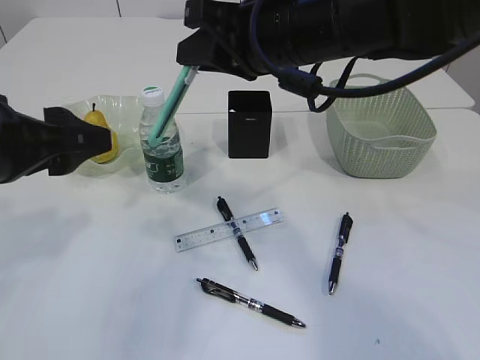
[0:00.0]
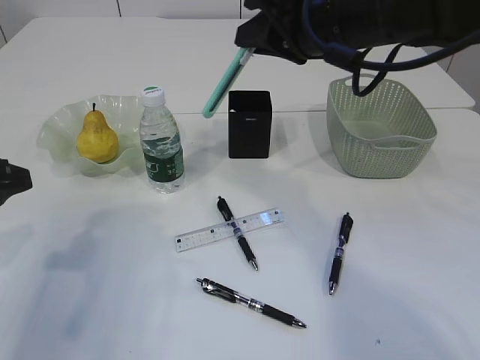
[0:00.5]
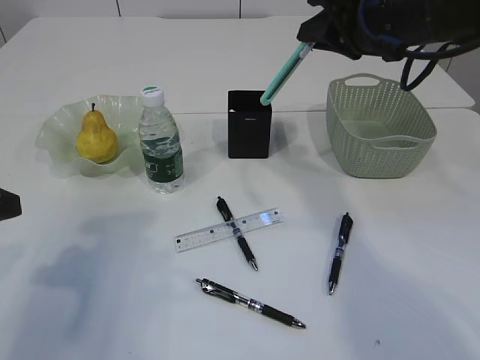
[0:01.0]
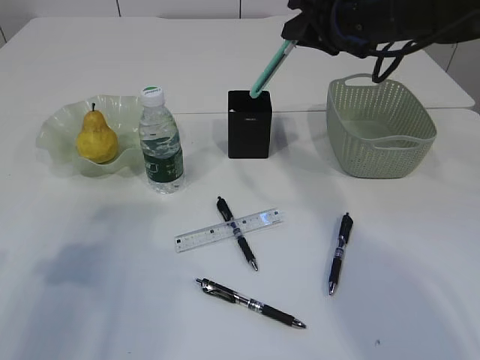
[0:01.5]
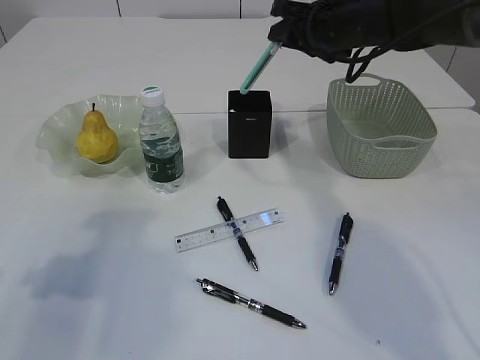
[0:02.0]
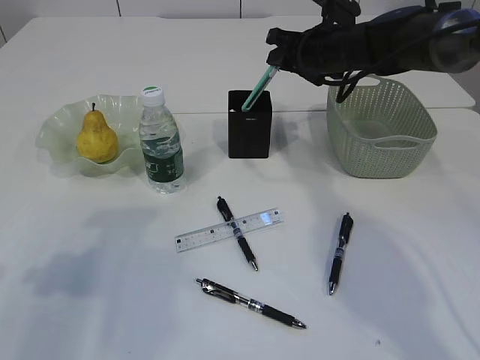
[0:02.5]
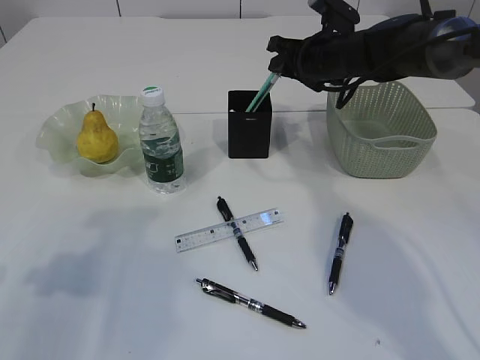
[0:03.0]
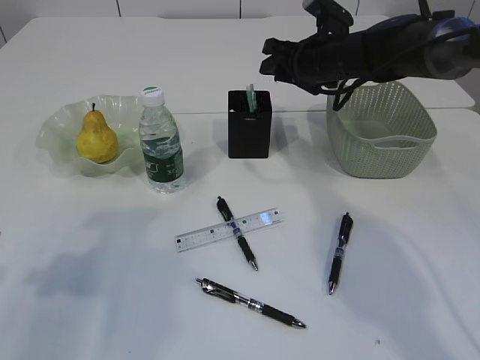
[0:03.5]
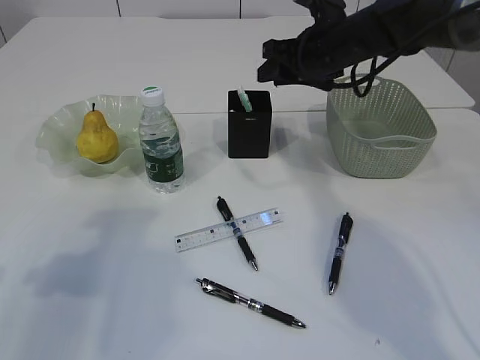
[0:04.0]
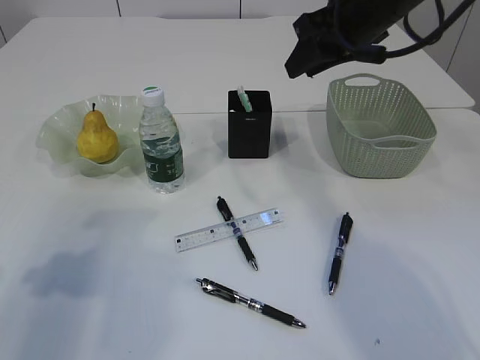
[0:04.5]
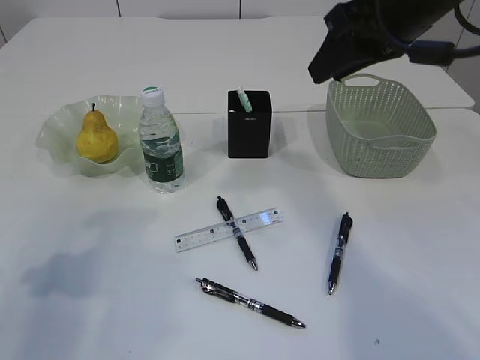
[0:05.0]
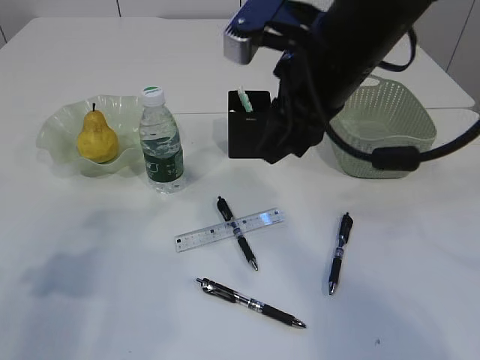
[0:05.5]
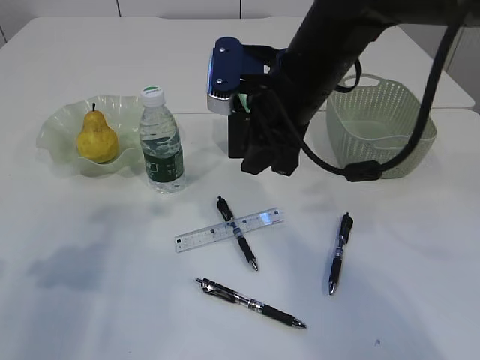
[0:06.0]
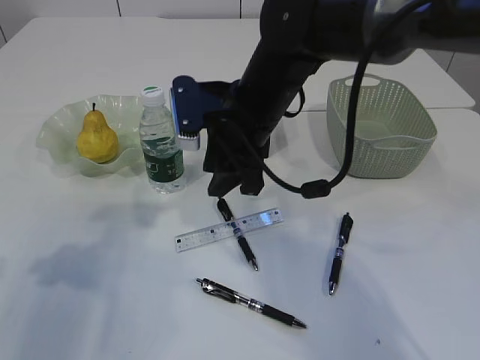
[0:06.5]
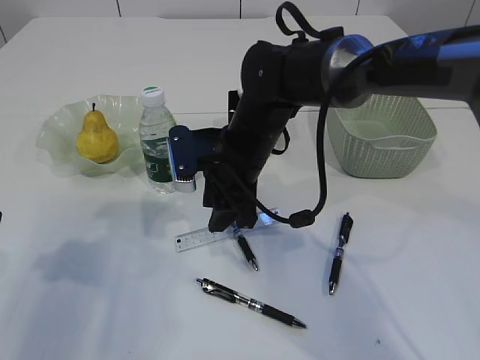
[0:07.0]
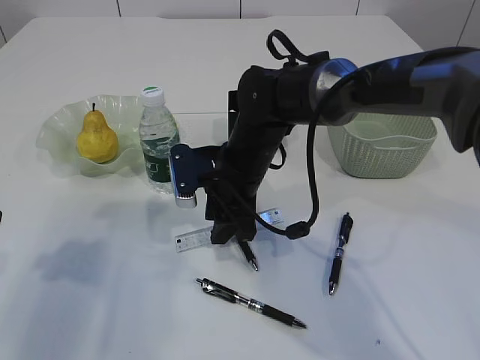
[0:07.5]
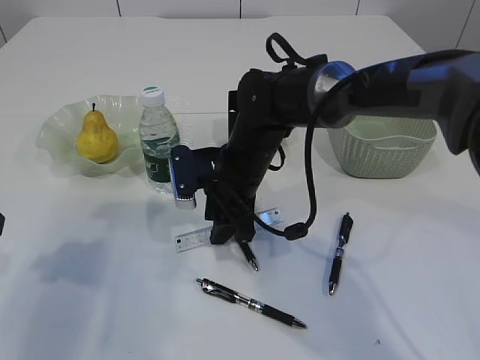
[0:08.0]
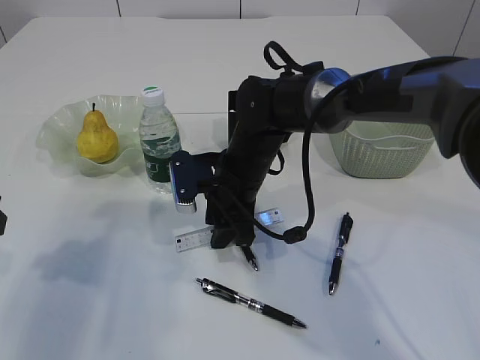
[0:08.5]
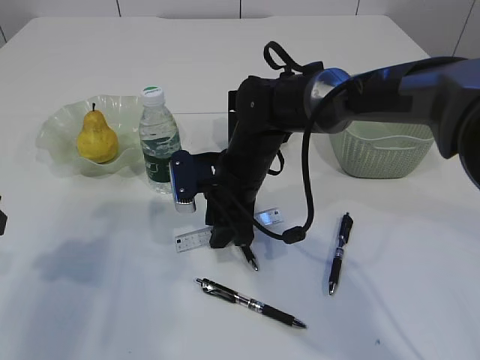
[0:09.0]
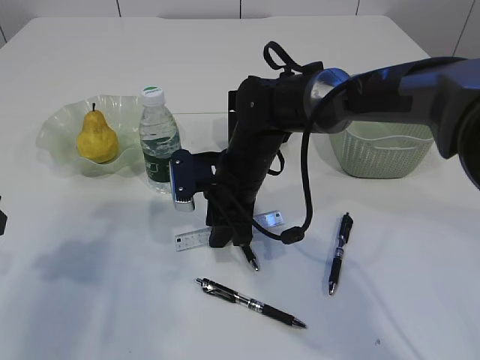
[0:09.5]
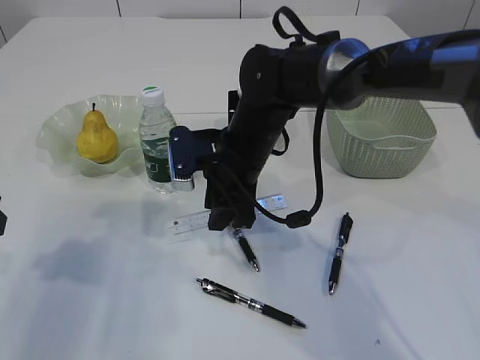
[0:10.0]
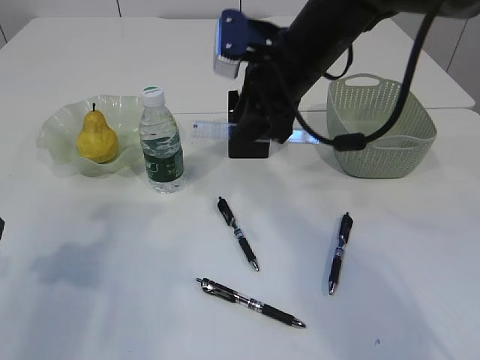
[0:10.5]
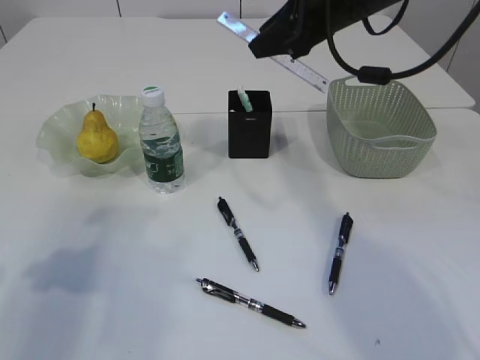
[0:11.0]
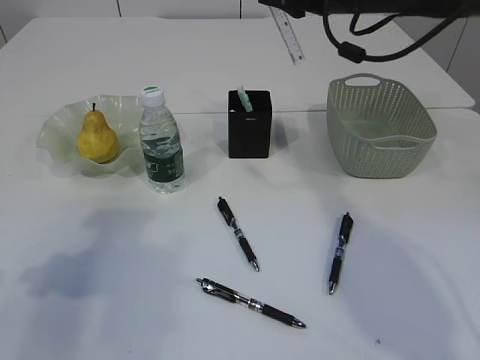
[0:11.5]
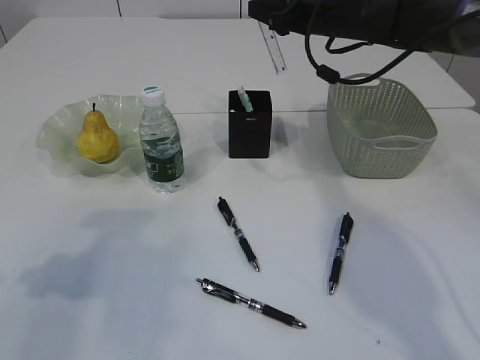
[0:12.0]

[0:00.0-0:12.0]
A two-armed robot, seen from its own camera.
Step, 0:00.0 to 0:04.5: Place the blue knife into the pen holder.
Step, 0:05.0 to 0:10.5: pick up the ruler.
0:00.0 to 0:02.0: The right gripper heads forward and to the right, covering approximately 20 cm. The left gripper moves to the left, about 5 cm.
0:02.0 to 0:04.0: There are only small adjustments of the grippers.
0:04.0 to 0:06.0: The right gripper shifts roughly 15 cm backward and to the left.
0:06.0 to 0:08.0: The right gripper moves downward, some 15 cm.
0:08.0 to 0:10.0: The grippers stay close to where they were, moving slightly.
0:10.0 to 0:12.0: The right gripper moves to the right, forward and upward, roughly 20 cm.

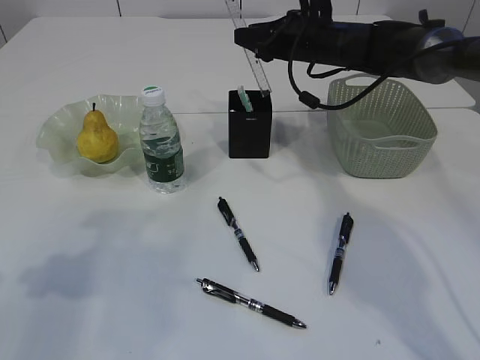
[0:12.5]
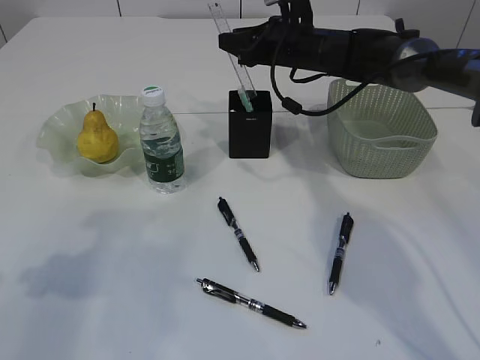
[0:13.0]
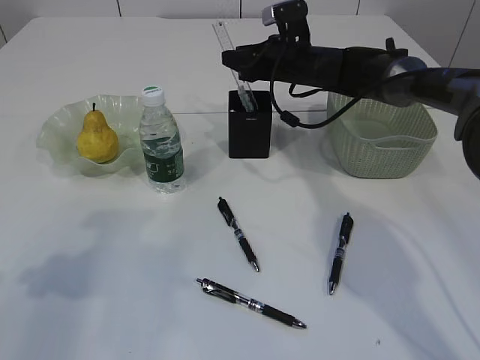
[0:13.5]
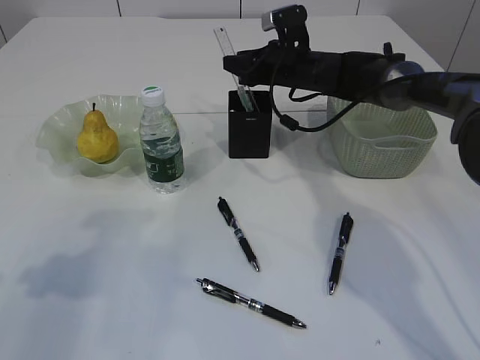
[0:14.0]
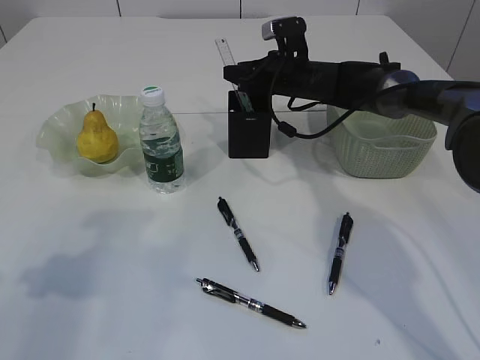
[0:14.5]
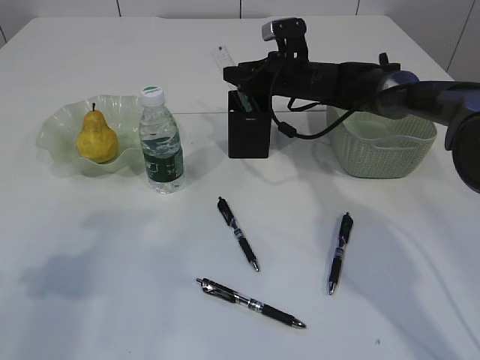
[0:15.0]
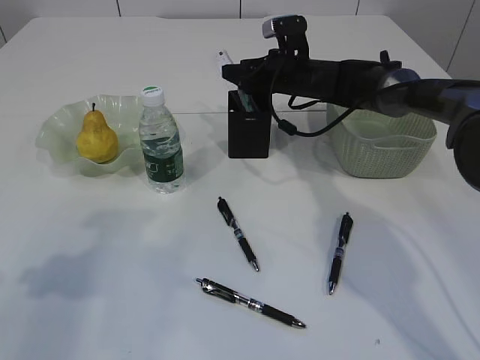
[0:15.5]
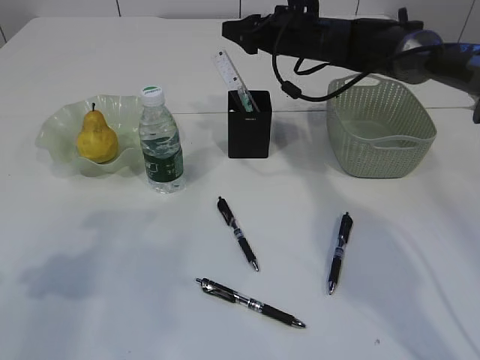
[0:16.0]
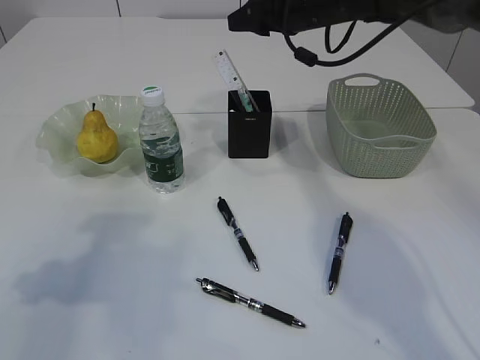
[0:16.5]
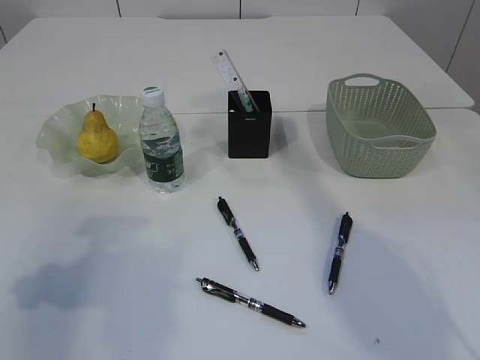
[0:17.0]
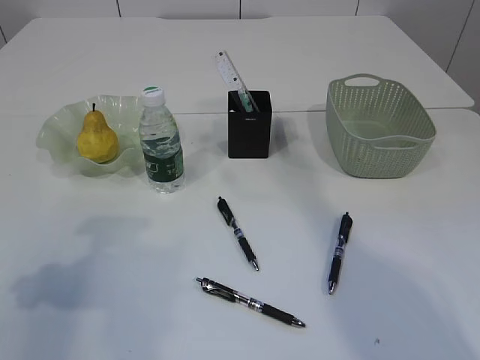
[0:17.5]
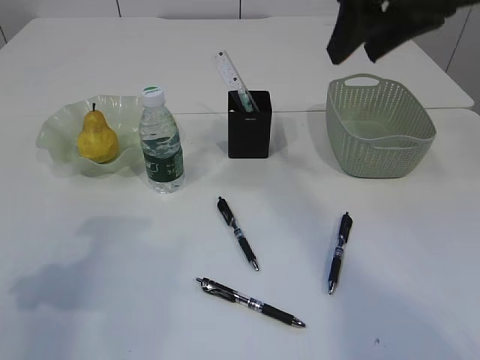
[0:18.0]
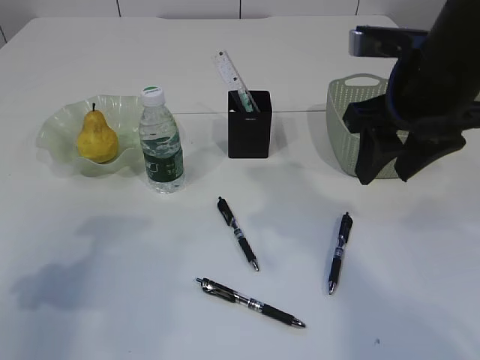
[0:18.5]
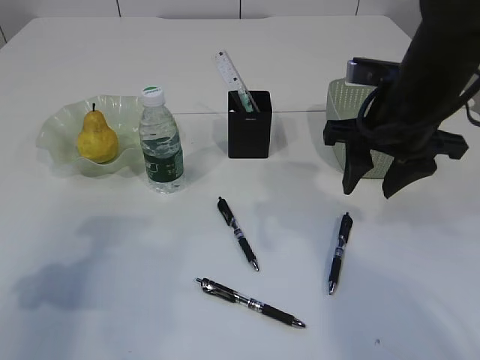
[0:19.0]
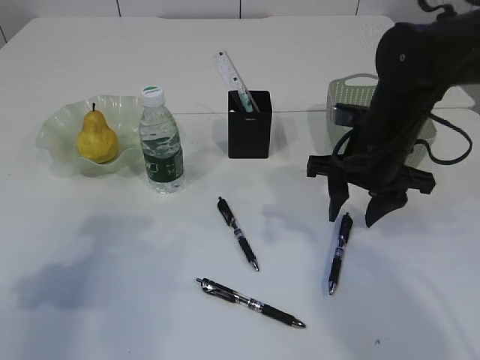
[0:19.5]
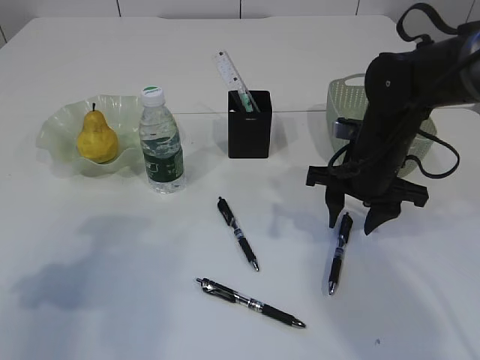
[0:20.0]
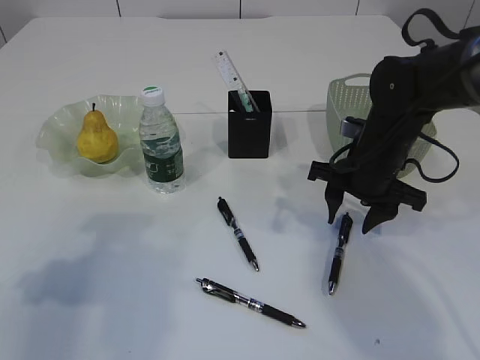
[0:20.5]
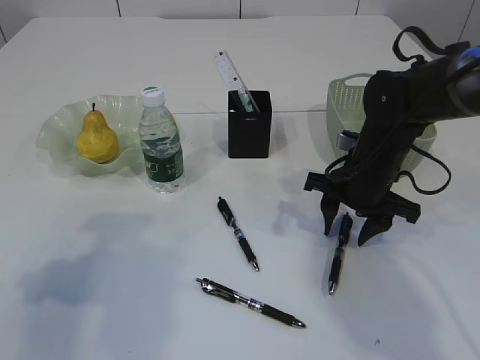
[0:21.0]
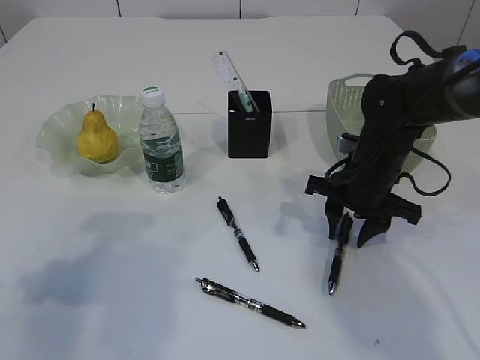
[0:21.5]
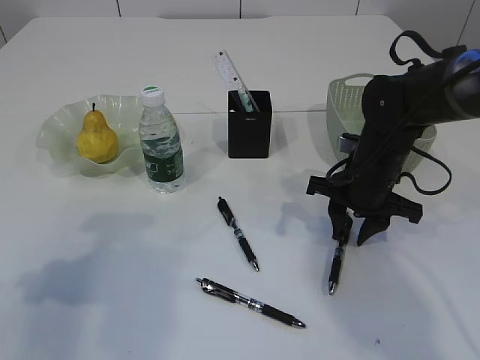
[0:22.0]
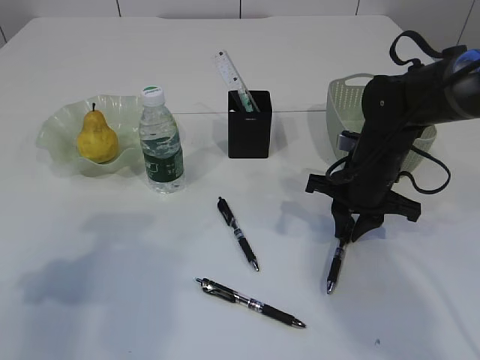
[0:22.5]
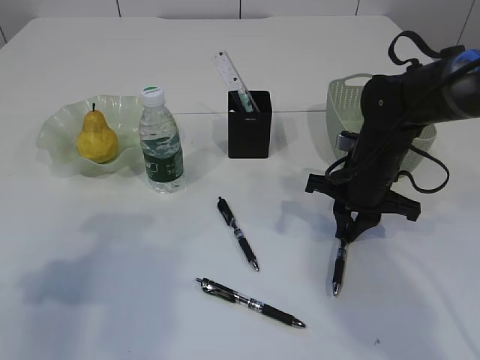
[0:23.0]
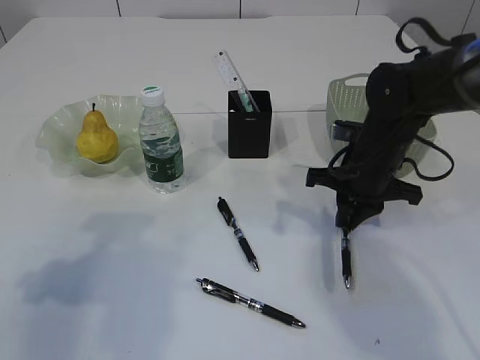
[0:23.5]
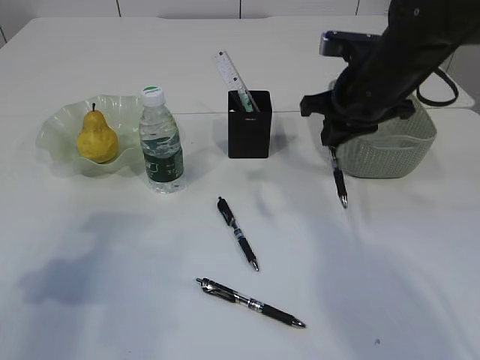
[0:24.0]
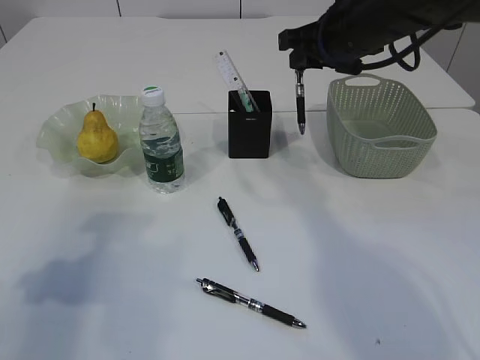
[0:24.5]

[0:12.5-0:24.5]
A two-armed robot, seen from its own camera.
Step, 0:12.5 to 0:16.0: Place the ruler into the pen holder.
Step, 0:16.5 to 0:24.0: Pick up the pen with right arm.
0:12.5 to 0:14.5: The right gripper is displaced downward by approximately 5 cm.
0:14.5 to 0:16.5: The right gripper shifts approximately 15 cm upward.
0:16.5 to 0:18.5: The right gripper heads backward, covering approximately 20 cm.
0:18.5 to 0:20.5: The right gripper goes about 15 cm downward and forward.
0:20.5 to 0:22.5: The right gripper closes up.
0:22.5 to 0:24.5: The right gripper travels upward by some 15 cm.

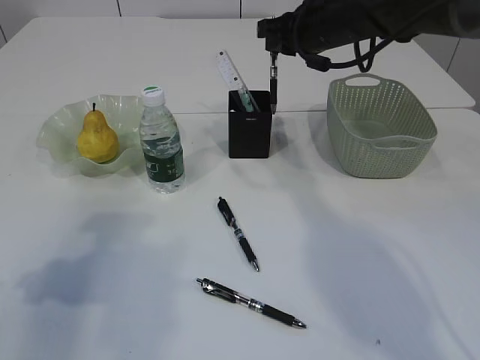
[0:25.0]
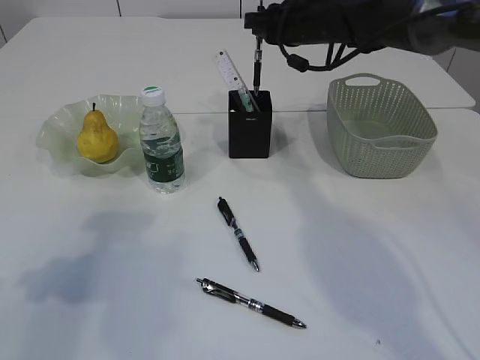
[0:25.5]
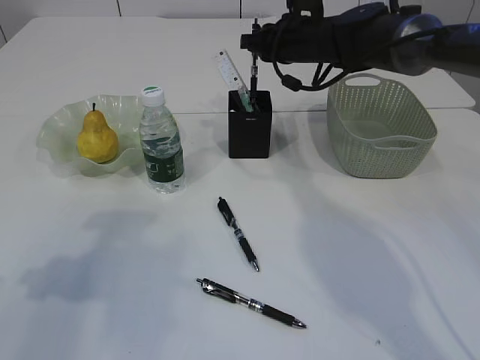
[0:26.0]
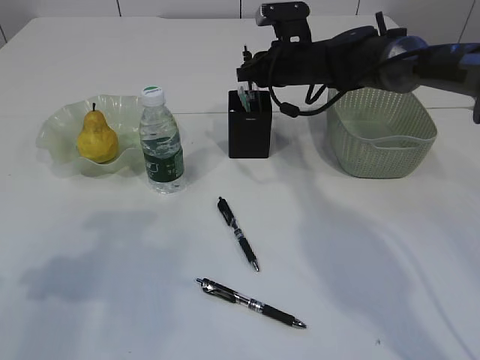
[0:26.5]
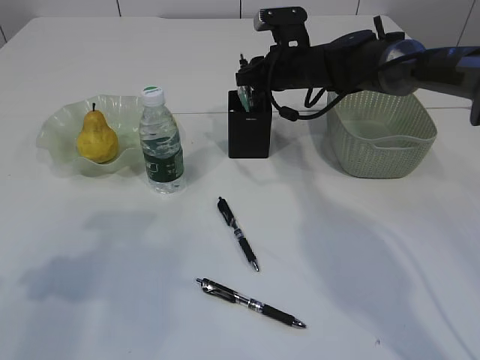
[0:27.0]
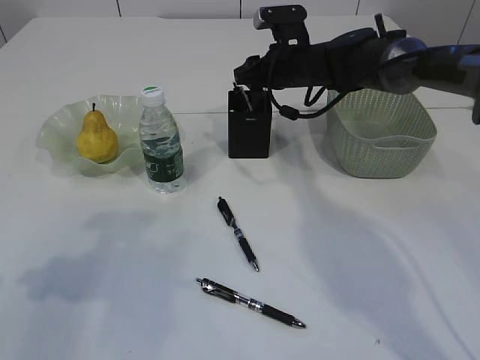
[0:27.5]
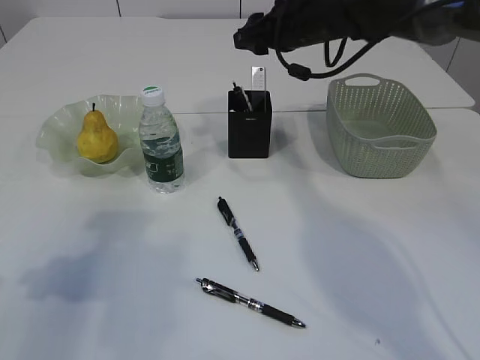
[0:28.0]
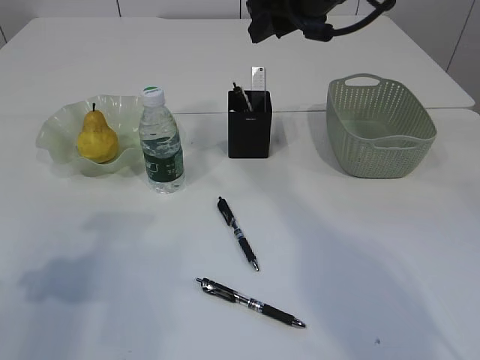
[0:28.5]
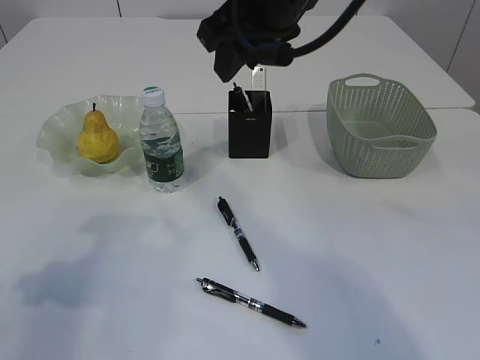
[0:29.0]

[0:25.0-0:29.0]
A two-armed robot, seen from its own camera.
Step, 0:25.0 to 0:28.0: Place the pen into the pen holder.
0:25.0 to 0:27.0: The right gripper shifts about 10 cm downward and forward.
0:27.0 to 0:29.0: The right gripper heads backward and upward, covering approximately 25 cm.
